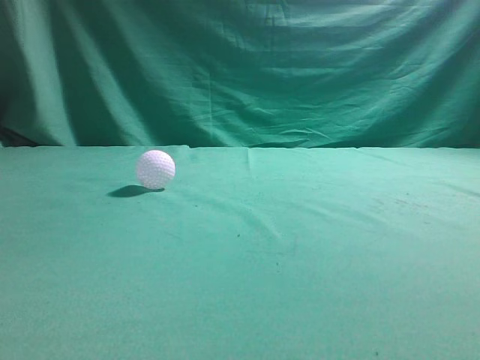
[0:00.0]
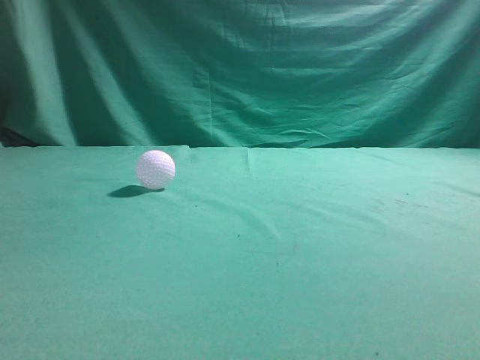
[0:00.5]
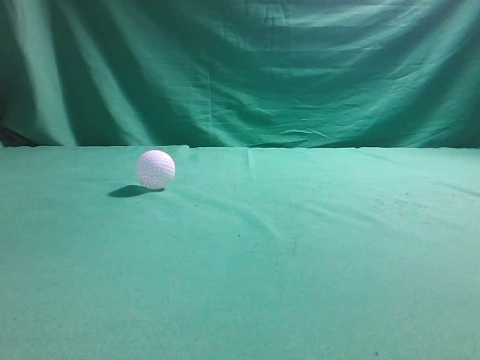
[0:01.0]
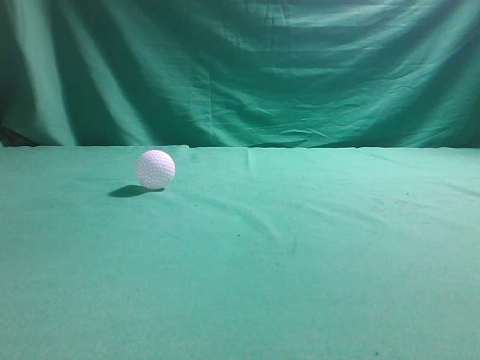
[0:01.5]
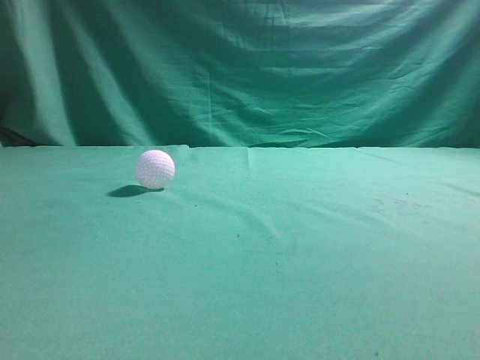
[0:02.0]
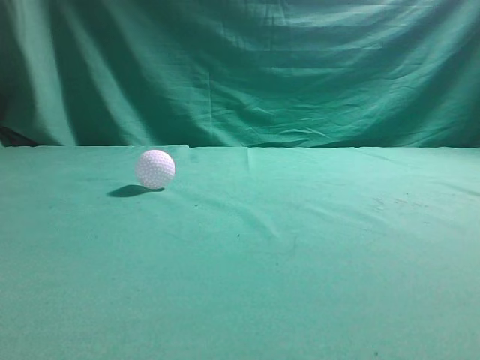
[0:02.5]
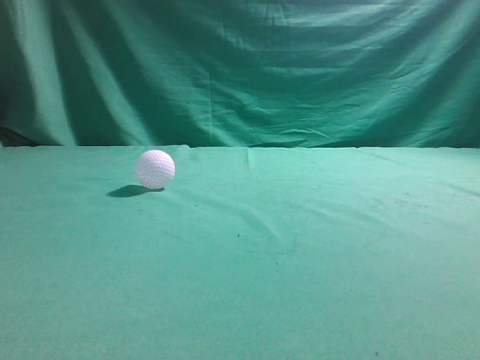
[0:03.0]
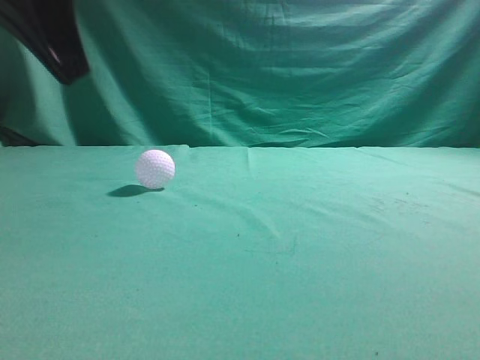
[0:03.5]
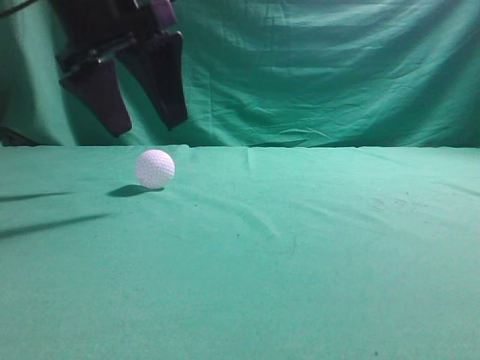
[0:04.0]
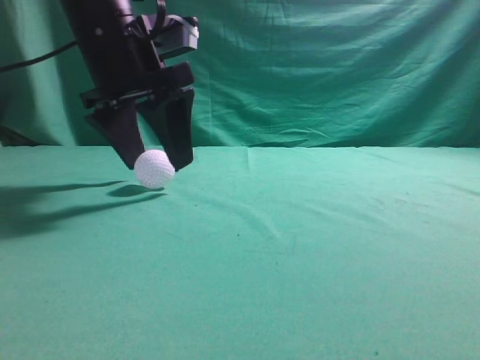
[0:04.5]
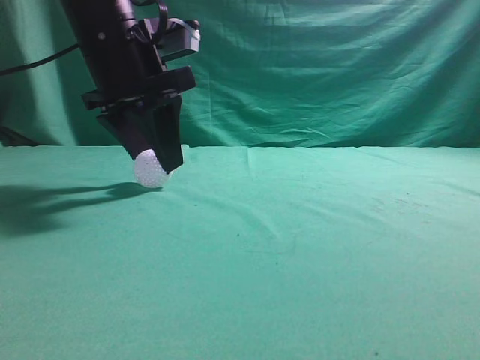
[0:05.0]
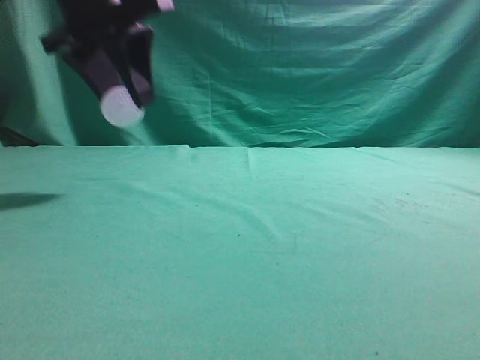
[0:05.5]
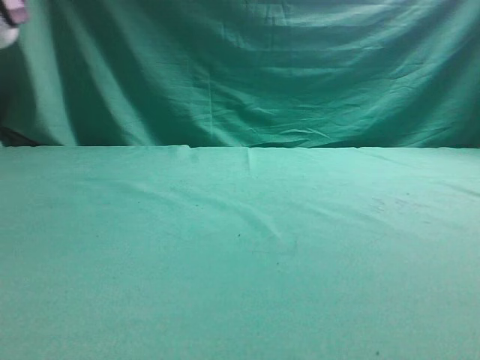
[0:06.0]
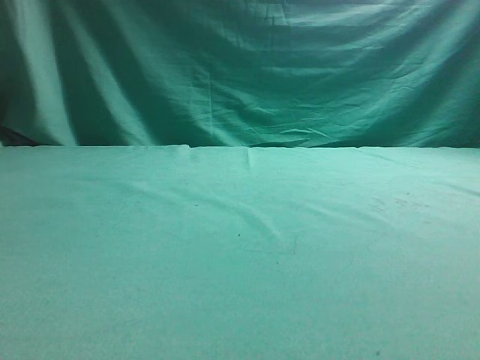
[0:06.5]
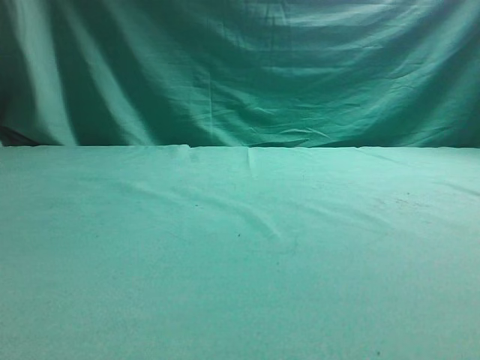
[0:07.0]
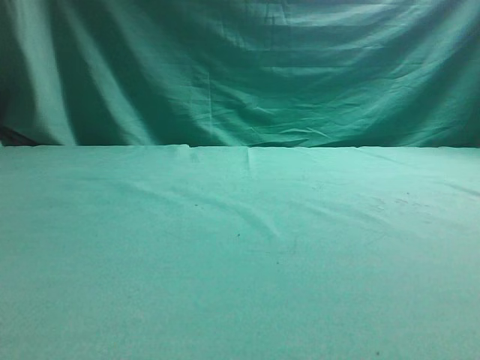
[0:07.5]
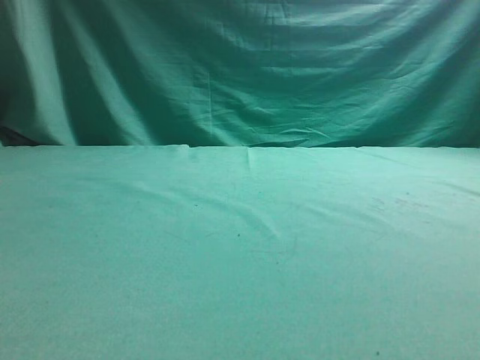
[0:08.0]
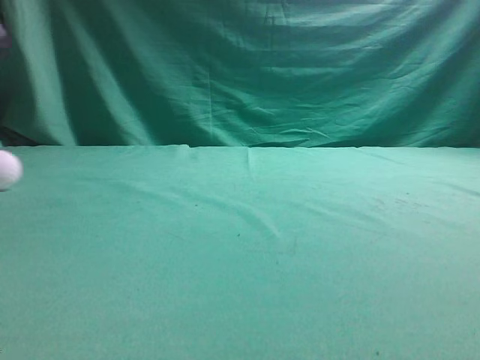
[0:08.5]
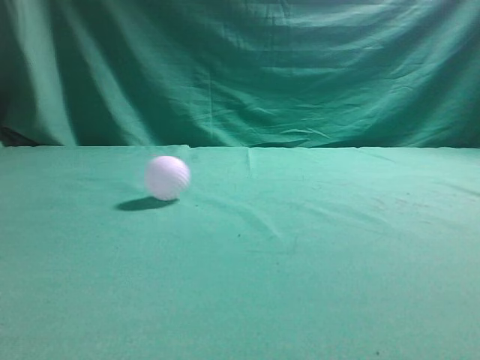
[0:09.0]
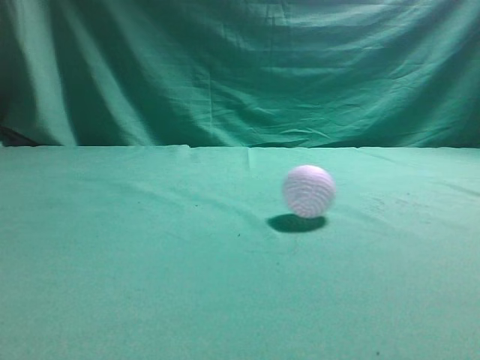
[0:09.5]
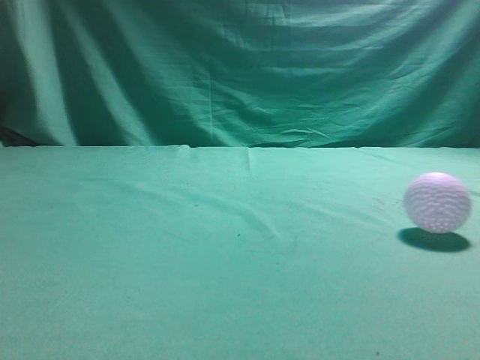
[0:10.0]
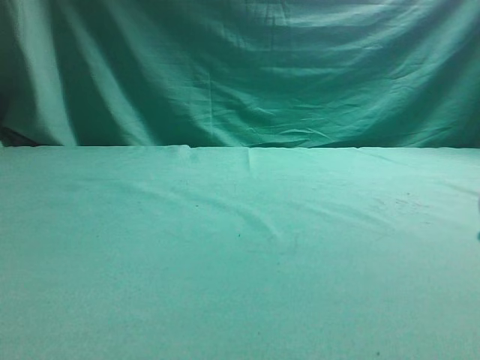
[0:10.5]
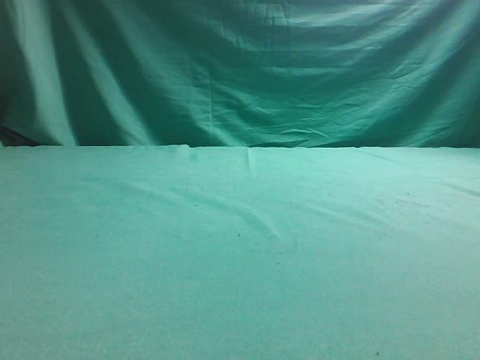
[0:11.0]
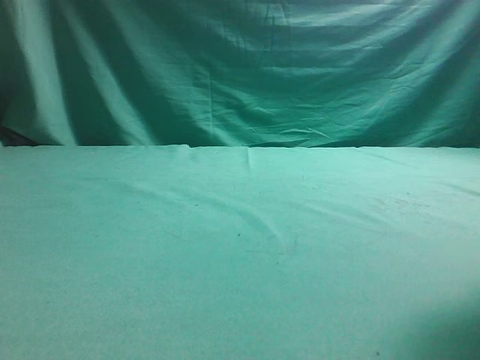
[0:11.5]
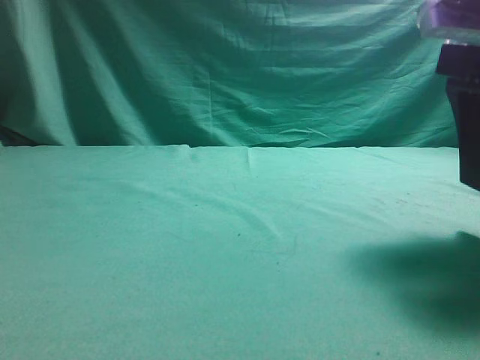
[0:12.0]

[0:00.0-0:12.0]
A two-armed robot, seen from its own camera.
Task of the whole recording: pick up the ball and place it on the plate, then pick up the ball from the plate and put it in the center of the table.
Step, 0:00.0 to 0:05.0: Grab the spherical object with your left arm.
Step, 0:05.5 to 0:07.5: Place the sphere on the white object.
0:02.0 to 0:04.0: The left gripper moves forward and to the right, approximately 35 cm, and opens up.
0:04.0 to 0:06.0: The left gripper is displaced to the left and upward by about 15 cm, and closes.
0:10.0 to 0:12.0: The right gripper goes about 20 cm forward, downward and to the left, and opens its fingers.

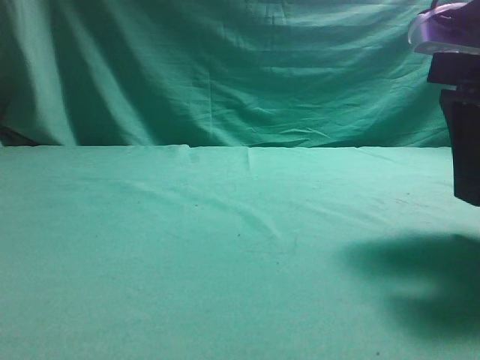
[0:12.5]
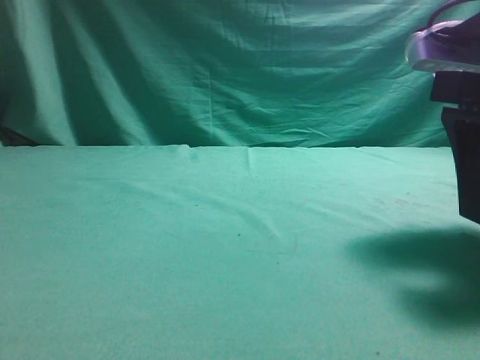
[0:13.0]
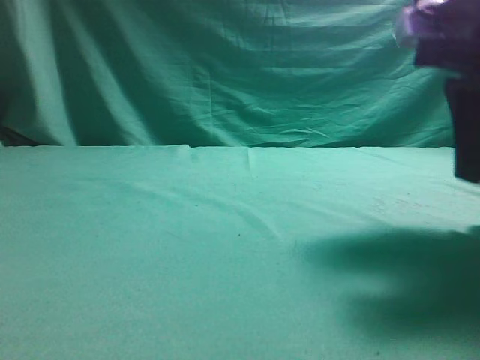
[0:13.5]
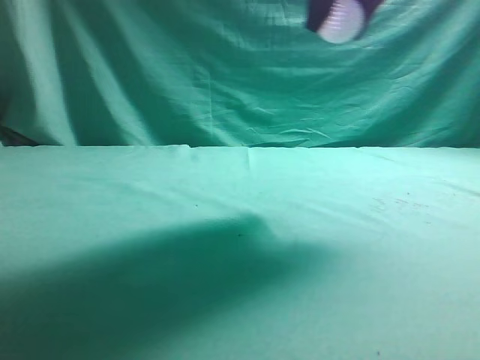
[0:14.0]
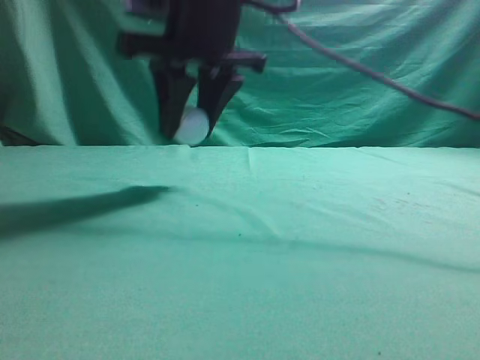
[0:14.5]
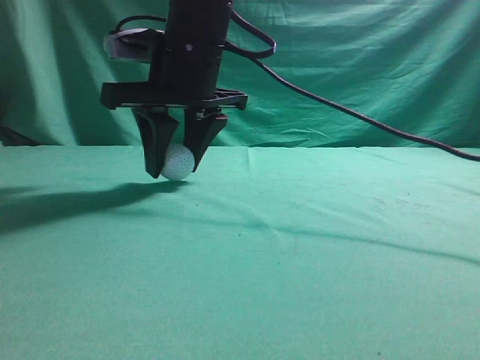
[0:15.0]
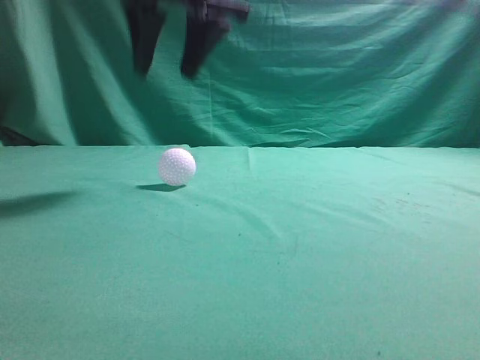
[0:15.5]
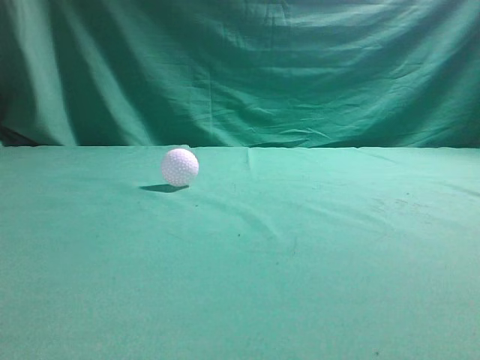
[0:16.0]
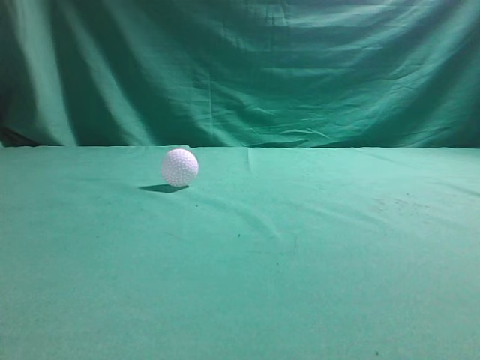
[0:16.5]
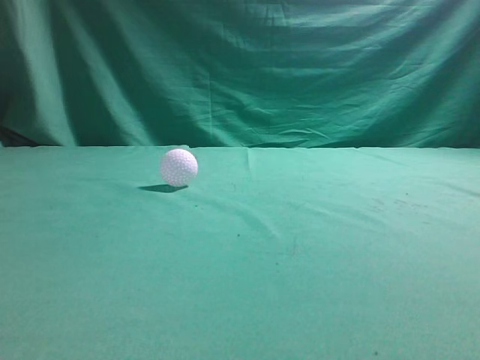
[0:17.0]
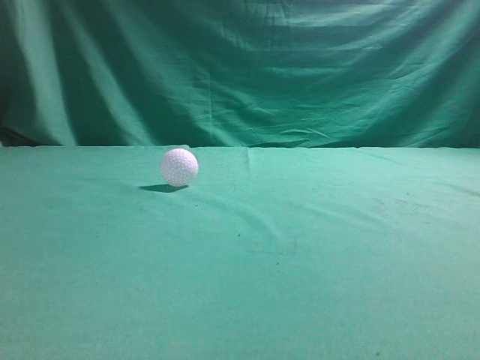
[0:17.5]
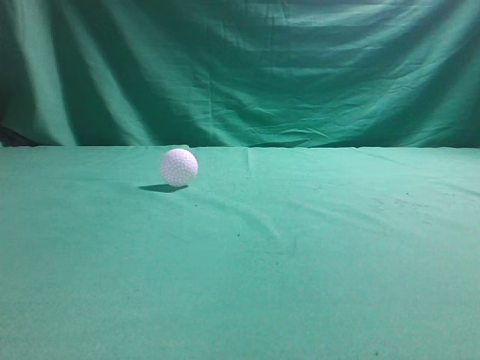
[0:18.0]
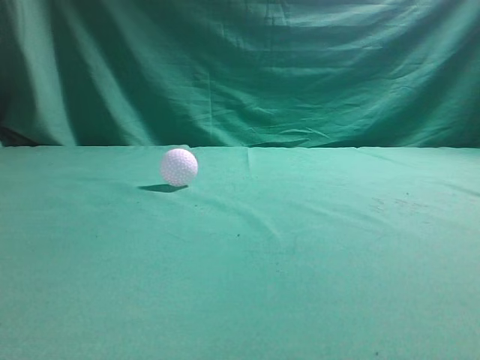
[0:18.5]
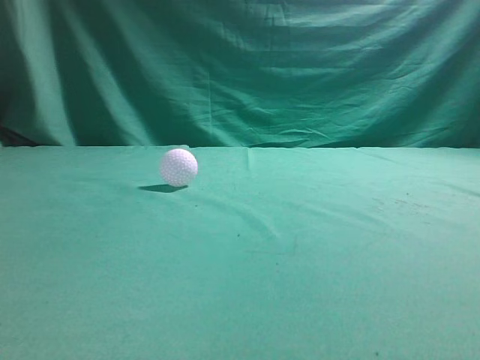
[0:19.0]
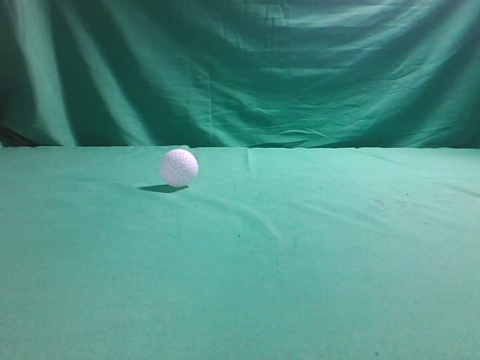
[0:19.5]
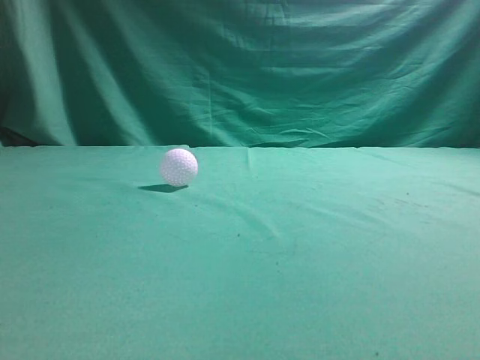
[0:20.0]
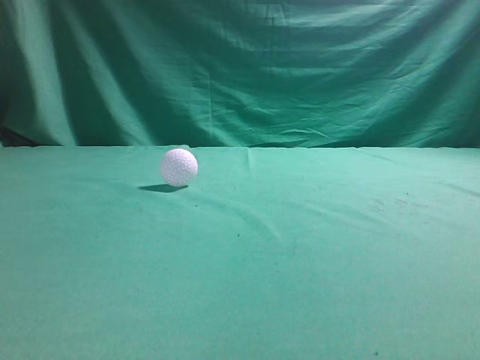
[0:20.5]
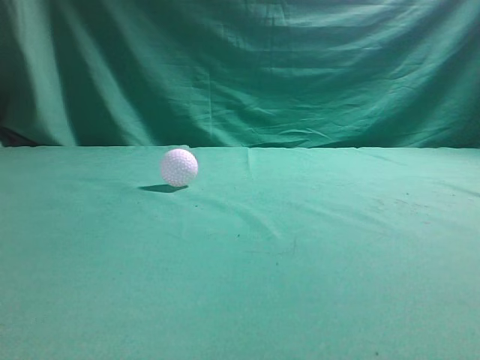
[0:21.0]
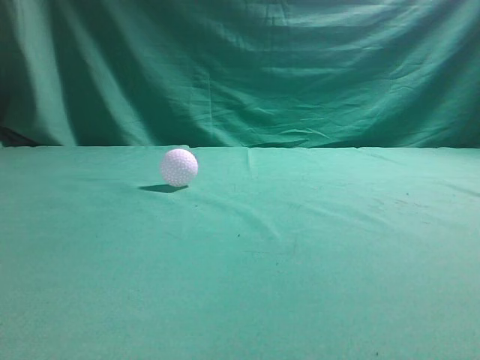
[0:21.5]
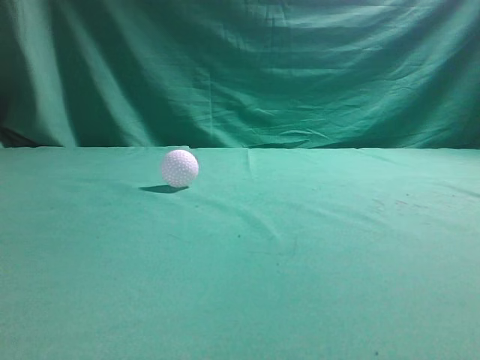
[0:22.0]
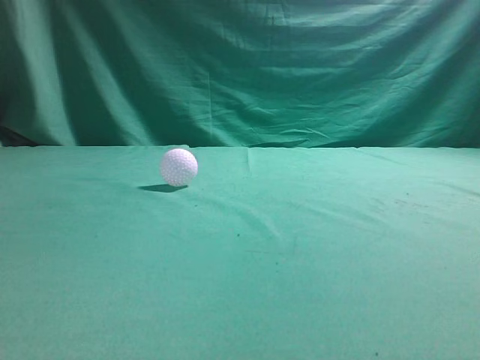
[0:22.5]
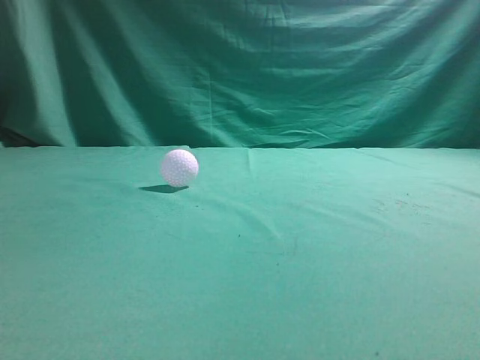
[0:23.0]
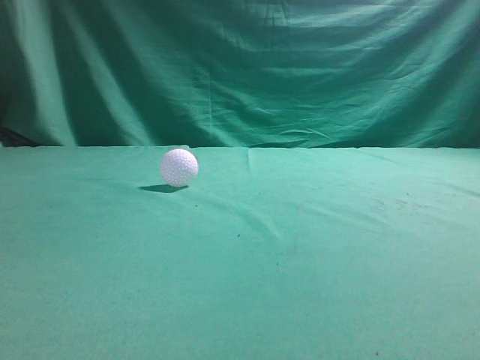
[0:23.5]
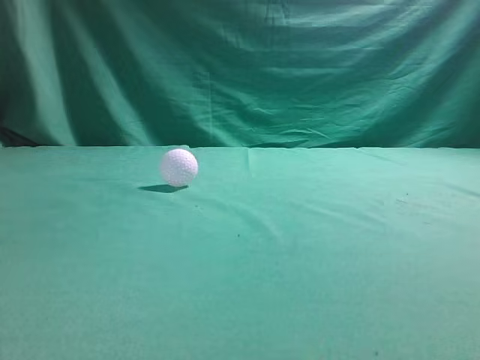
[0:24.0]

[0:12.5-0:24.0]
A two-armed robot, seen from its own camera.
Task of the whole recording: pick up the ball and place it on the plate, then pick up the ball from the plate and put it in the center of the table.
Step, 0:14.0 to 0:15.0: Put the picked-up object on the table.
0:12.5 to 0:14.5: The right gripper moves to the left and forward, some 25 cm, and closes. Meanwhile the left gripper travels backward by about 5 cm.
0:14.5 to 0:16.5: The right gripper shifts approximately 35 cm upward, backward and to the right, and closes.
